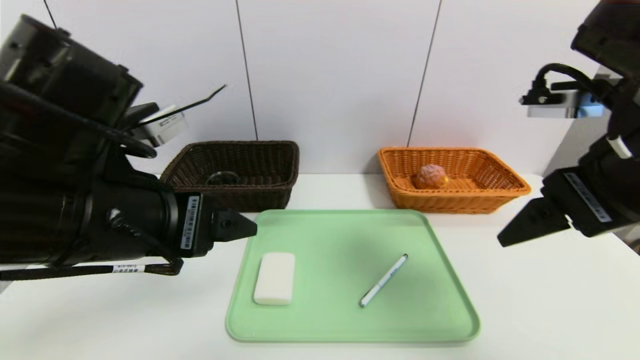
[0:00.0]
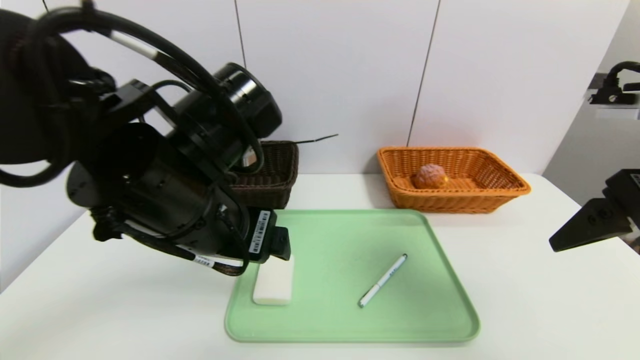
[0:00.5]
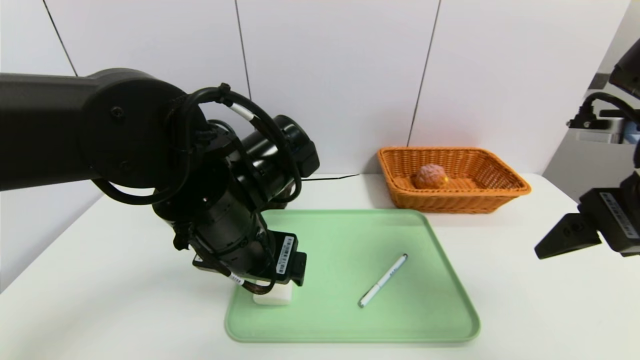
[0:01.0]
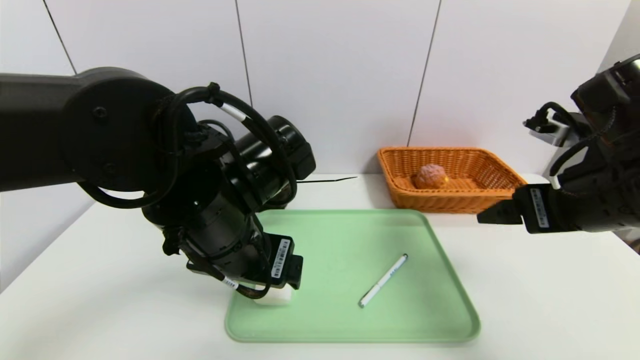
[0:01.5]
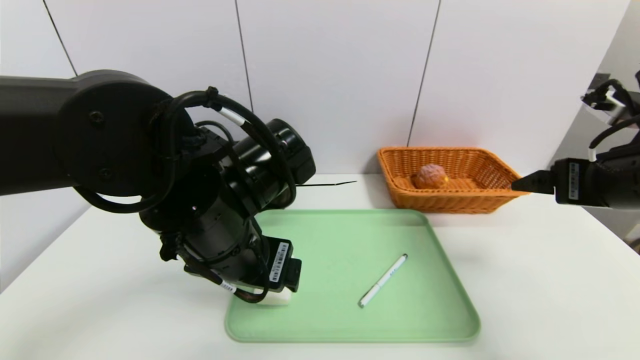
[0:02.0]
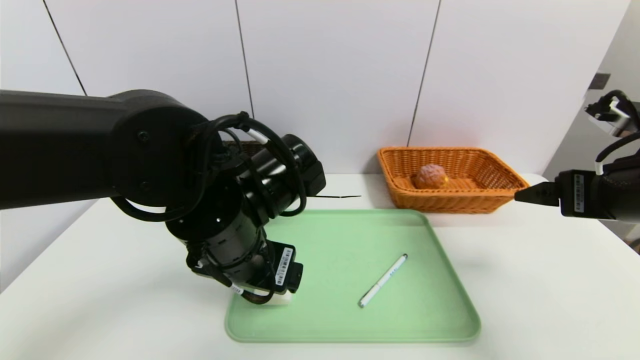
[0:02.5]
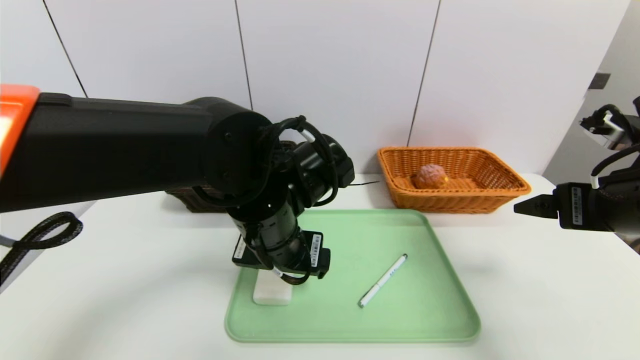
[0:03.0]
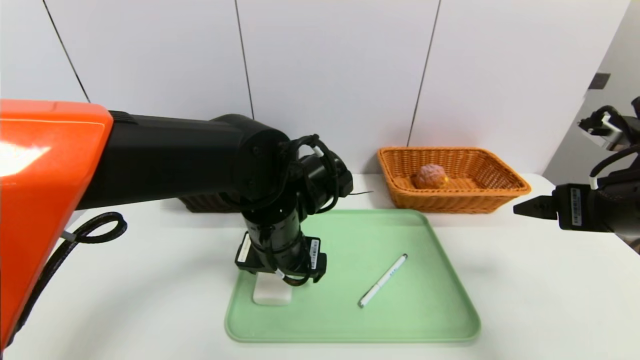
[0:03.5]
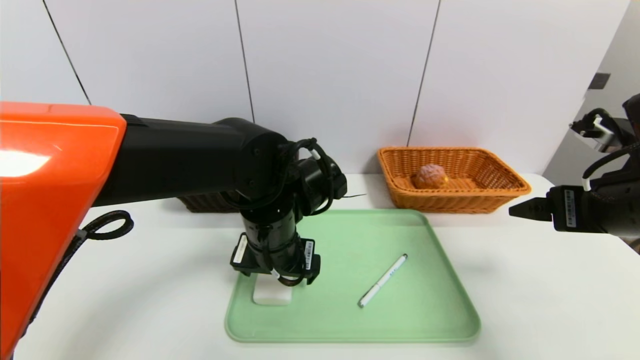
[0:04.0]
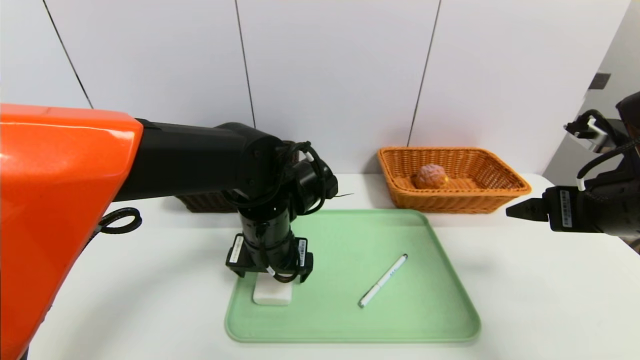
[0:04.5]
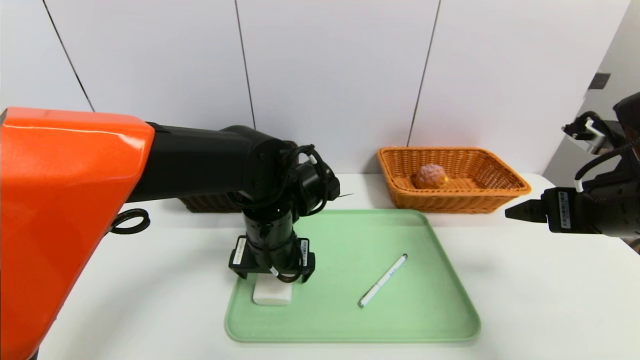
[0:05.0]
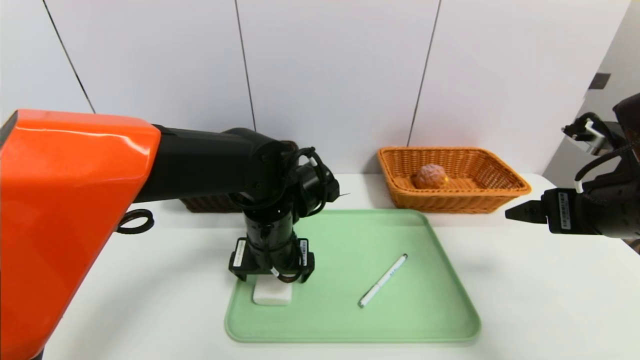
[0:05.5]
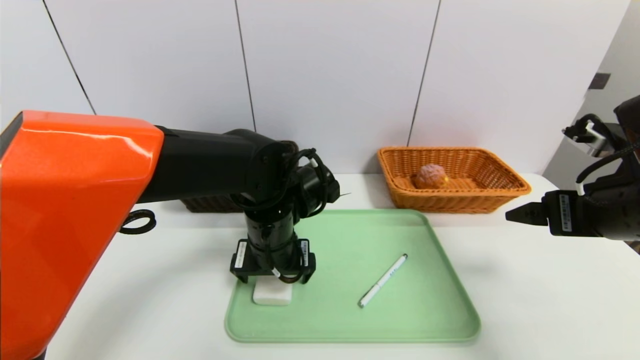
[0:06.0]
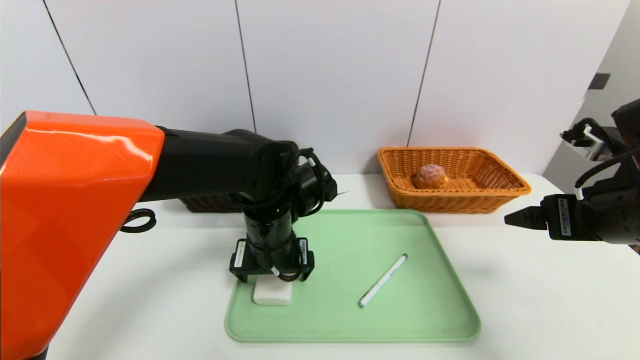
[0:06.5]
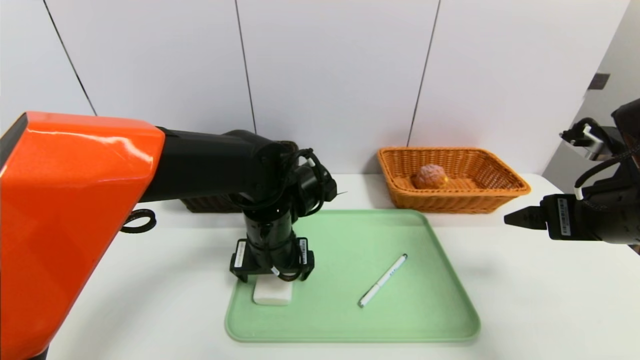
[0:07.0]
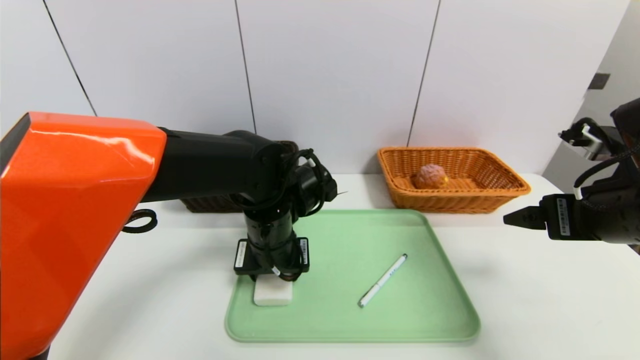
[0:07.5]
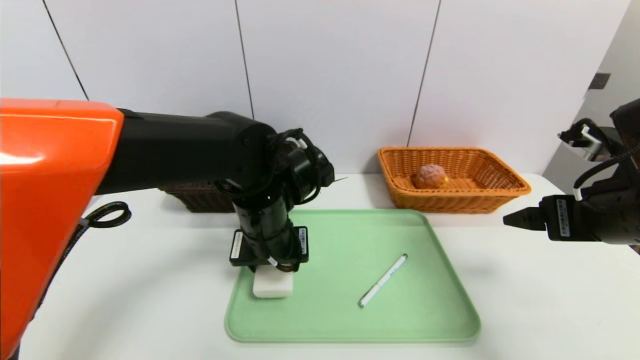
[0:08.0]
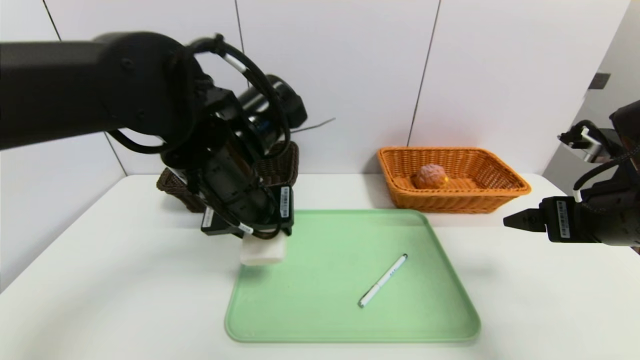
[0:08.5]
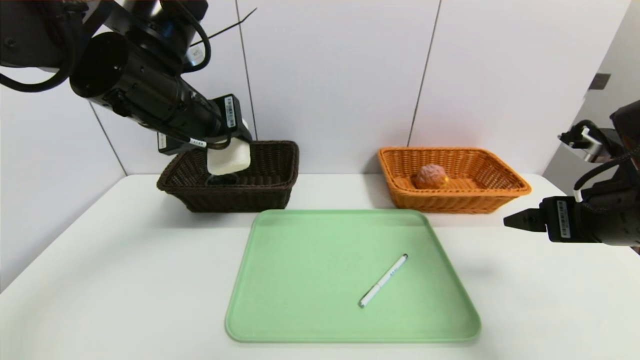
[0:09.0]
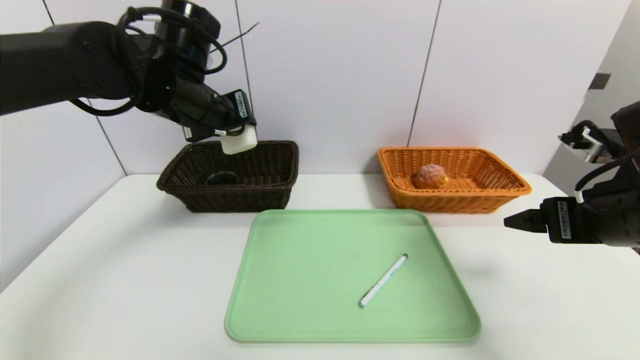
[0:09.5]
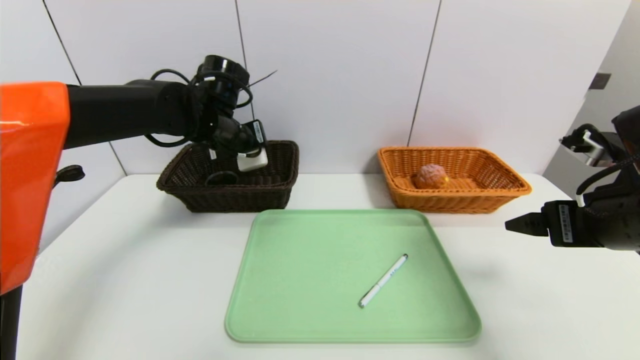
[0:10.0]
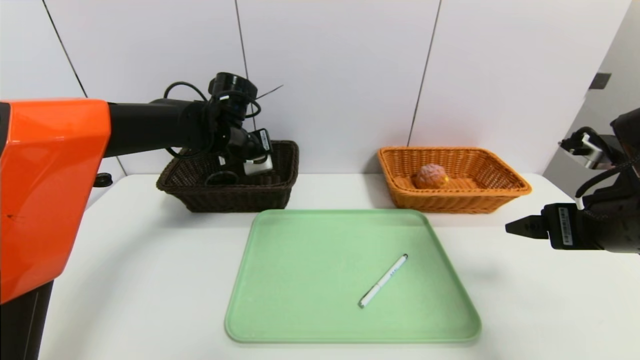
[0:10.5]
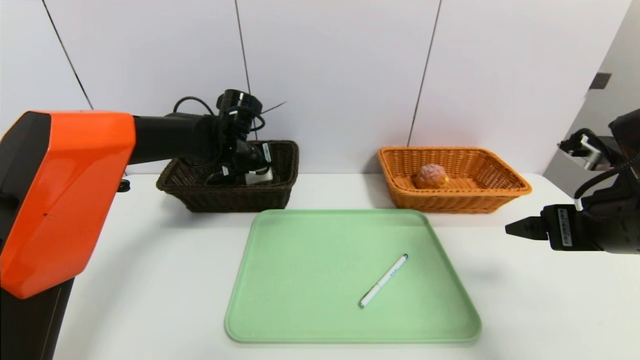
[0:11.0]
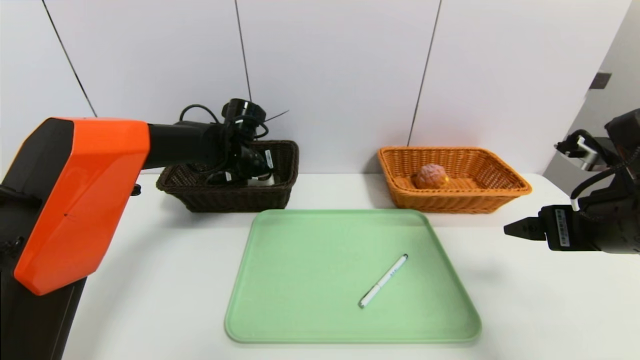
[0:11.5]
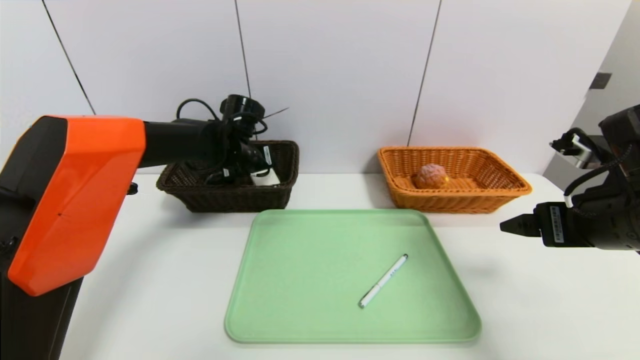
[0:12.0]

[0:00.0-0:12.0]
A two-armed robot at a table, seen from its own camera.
Task of the whole recording: place the food in the right basket with the right gripper, and place the non food items in the left basket with the left gripper.
0:00.0 to 0:02.0: Both grippers travel together to the right and downward, approximately 10 cm.
0:02.0 to 0:04.0: The left gripper shifts approximately 10 cm forward and downward.
0:04.0 to 0:06.0: The grippers move only a little.
0:06.0 to 0:08.0: The left gripper closes.
0:08.0 to 0:10.0: The left gripper travels forward, to the left and upward by roughly 15 cm.
0:10.0 to 0:12.0: The left gripper is displaced downward by roughly 5 cm.

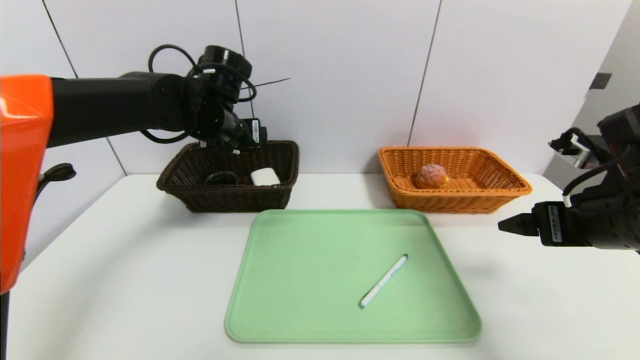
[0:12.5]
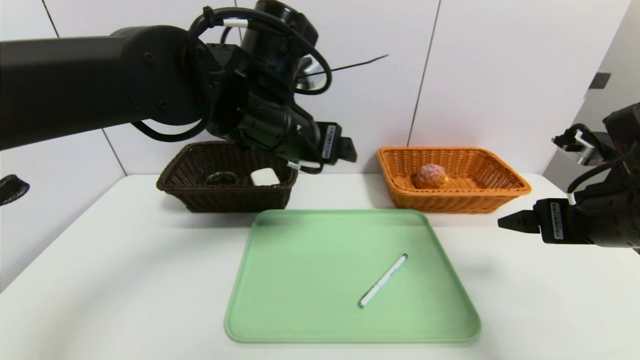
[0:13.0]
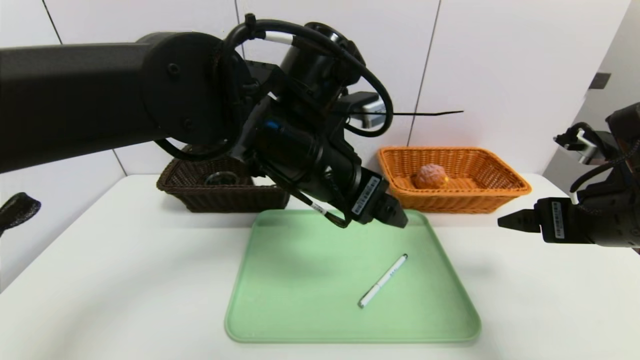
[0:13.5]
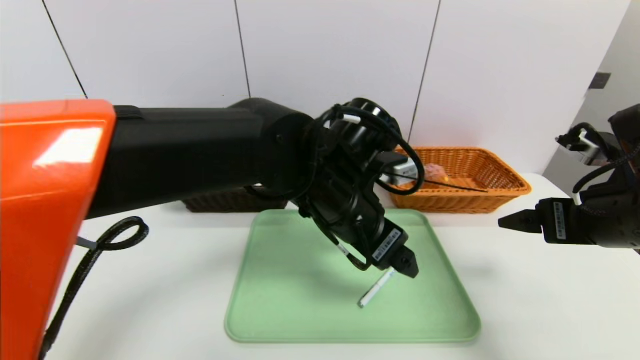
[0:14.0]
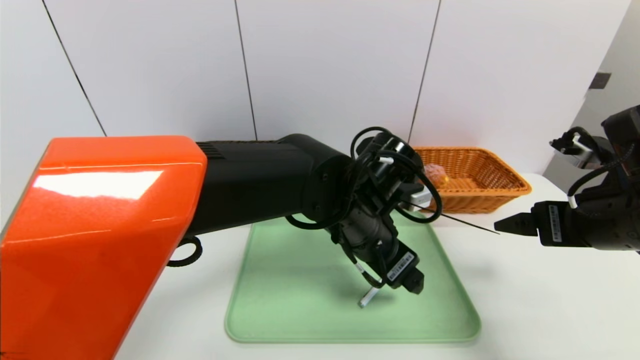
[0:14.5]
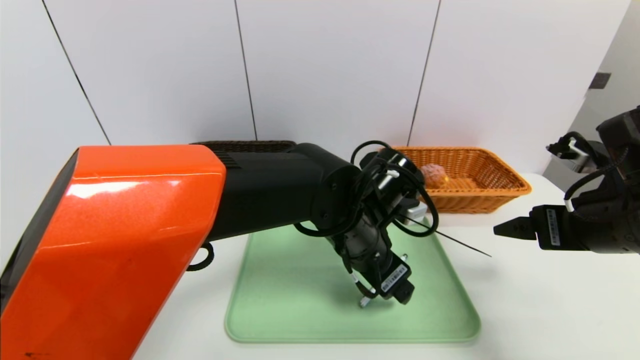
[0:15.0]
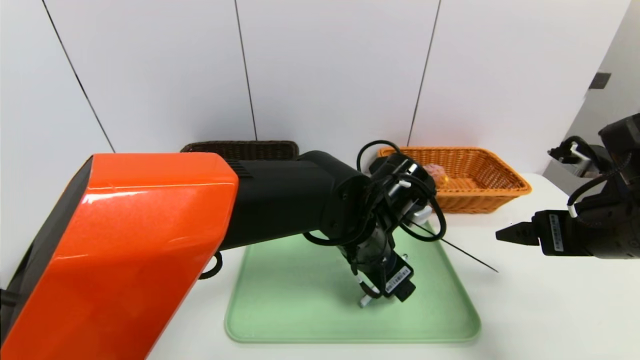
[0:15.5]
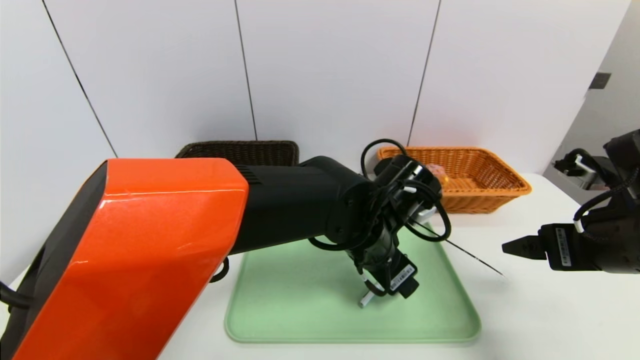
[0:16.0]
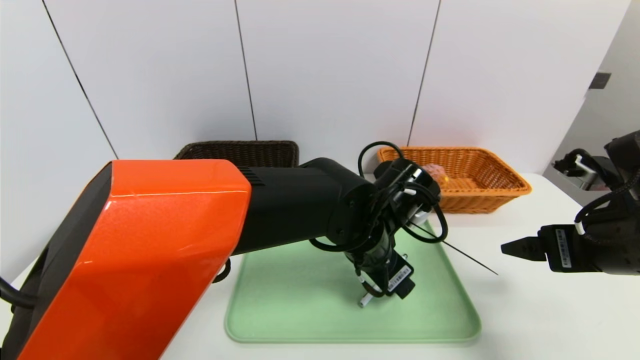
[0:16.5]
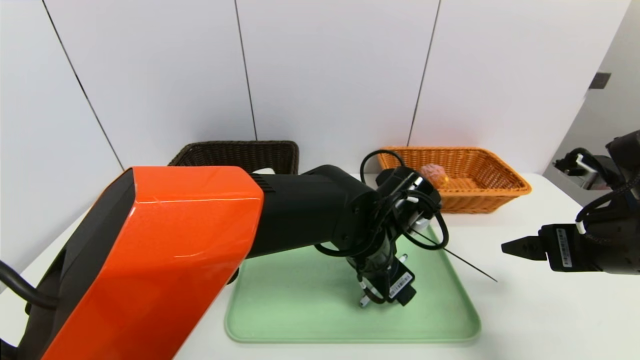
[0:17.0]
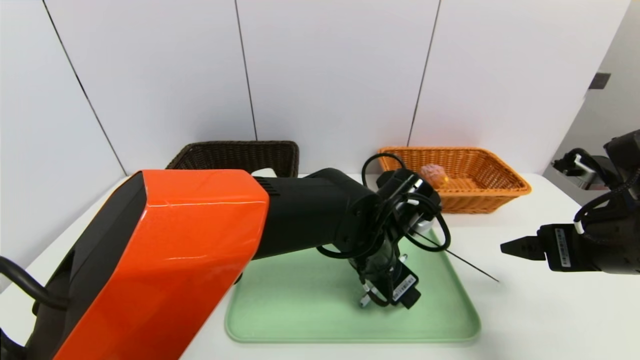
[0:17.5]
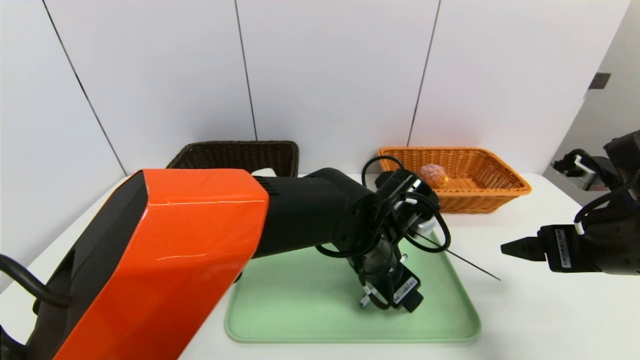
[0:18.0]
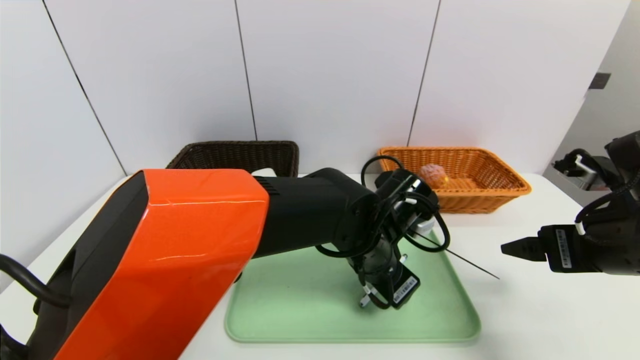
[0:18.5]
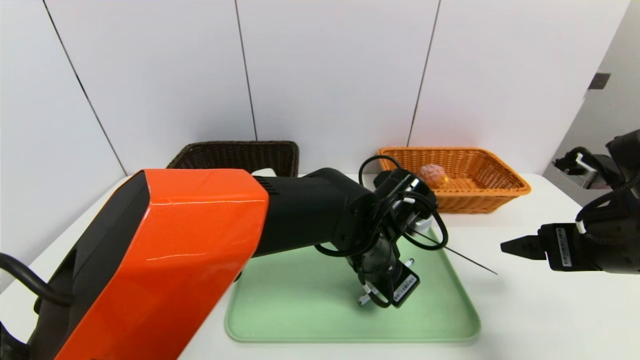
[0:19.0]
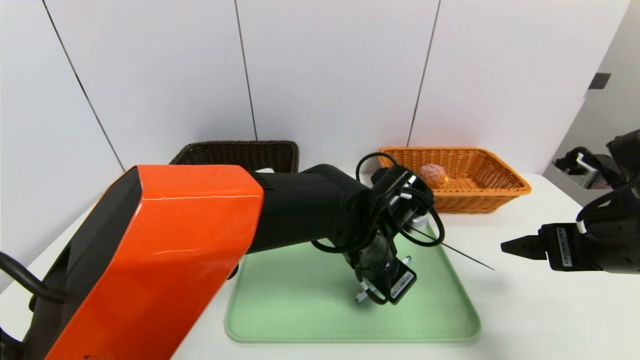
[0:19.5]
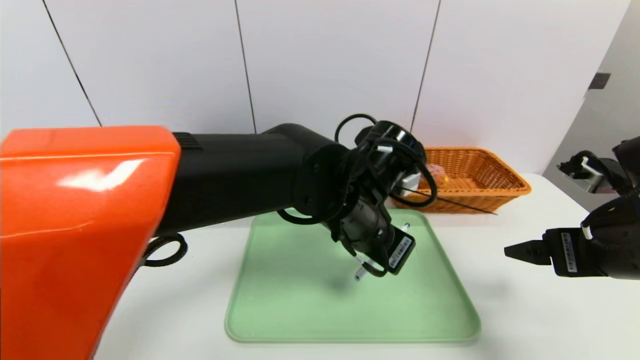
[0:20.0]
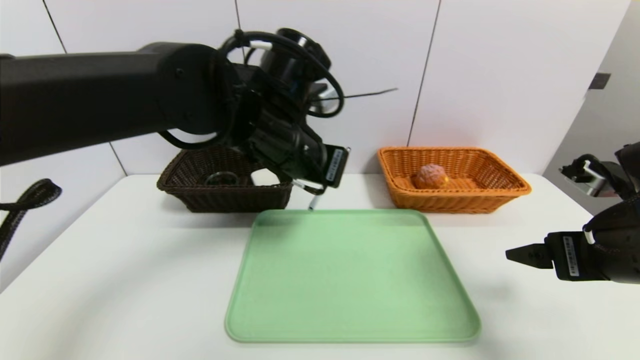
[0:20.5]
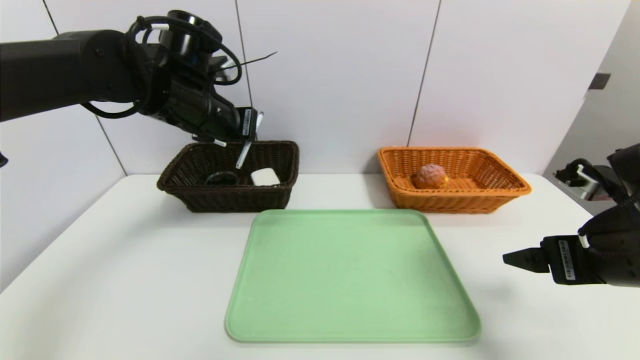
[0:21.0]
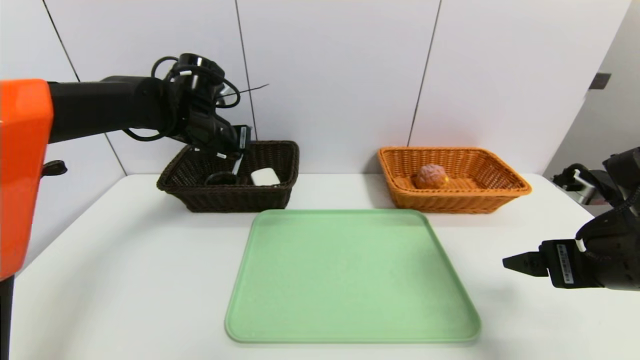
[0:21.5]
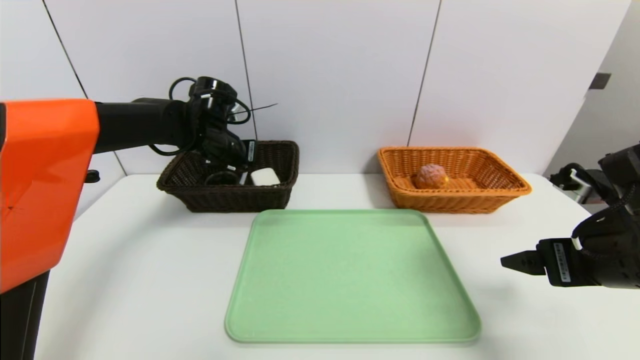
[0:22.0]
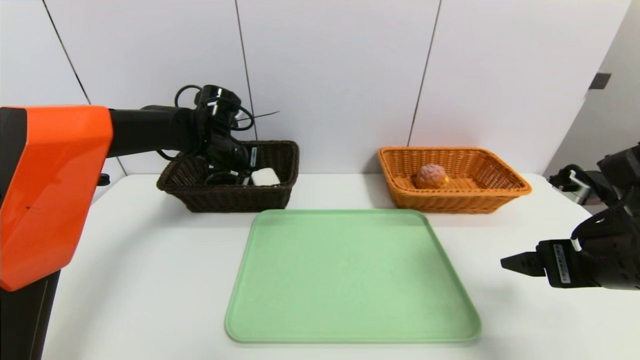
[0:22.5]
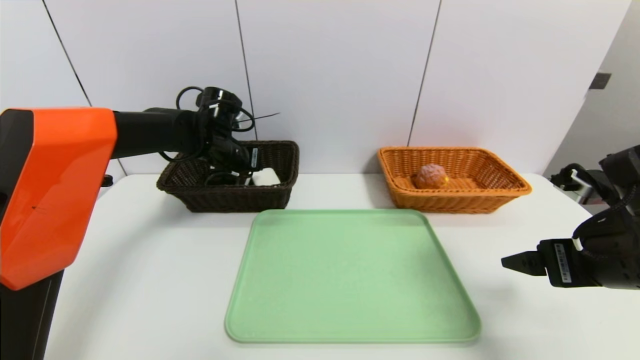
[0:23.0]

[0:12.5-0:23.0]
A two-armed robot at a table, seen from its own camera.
Task of the whole recording: place the food in the right basket with the right gripper, and place the non food items in the left basket with the left gripper.
0:12.5 to 0:14.5: The left gripper travels to the right and backward by approximately 25 cm.
0:16.5 to 0:19.0: The left gripper closes its fingers.
0:19.0 to 0:21.0: The left gripper goes some 30 cm to the left and upward.
0:21.0 to 0:23.0: The left gripper heads downward and forward, covering approximately 15 cm, and opens its fingers.
